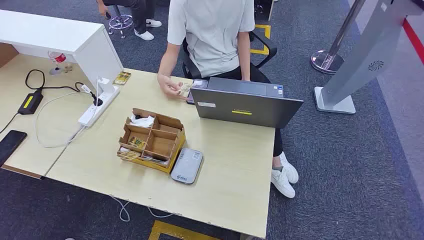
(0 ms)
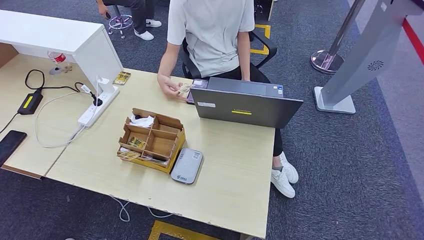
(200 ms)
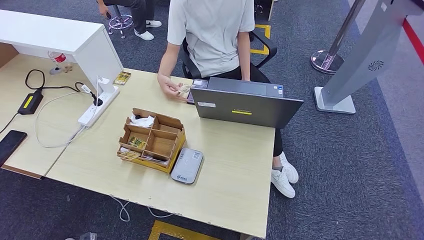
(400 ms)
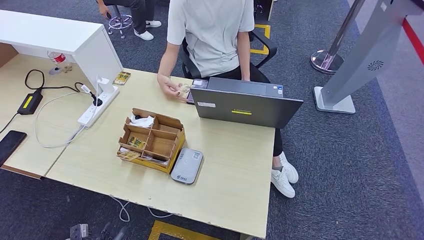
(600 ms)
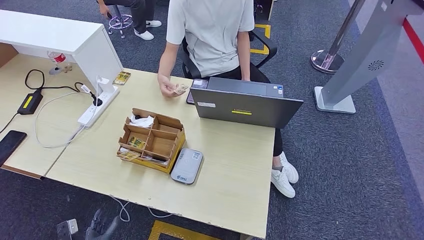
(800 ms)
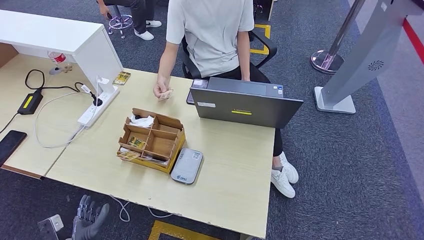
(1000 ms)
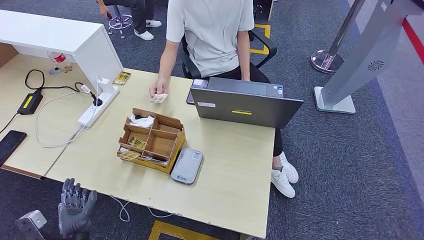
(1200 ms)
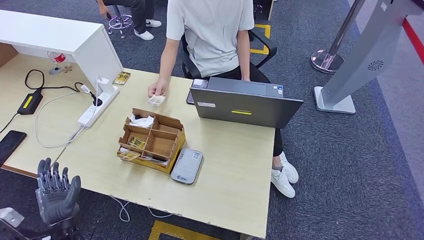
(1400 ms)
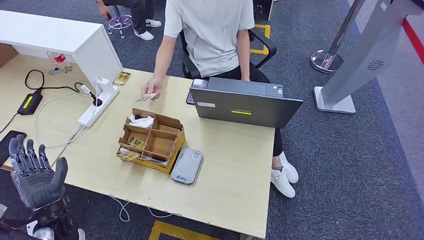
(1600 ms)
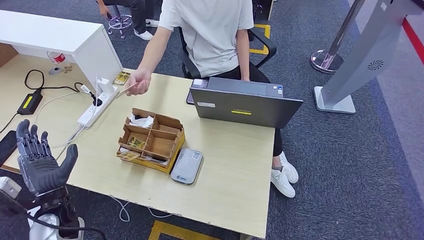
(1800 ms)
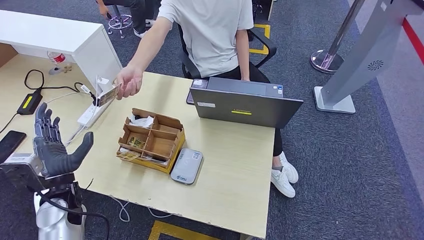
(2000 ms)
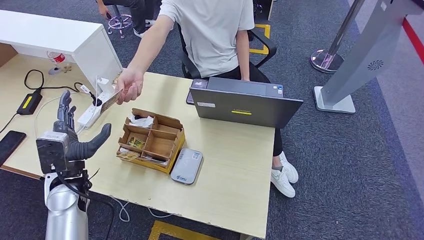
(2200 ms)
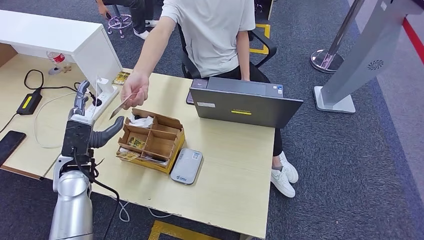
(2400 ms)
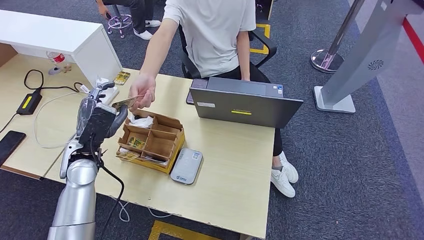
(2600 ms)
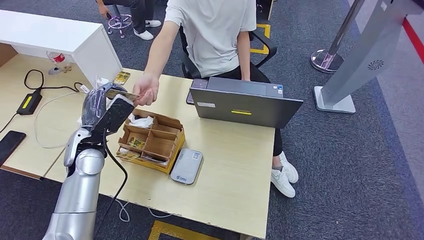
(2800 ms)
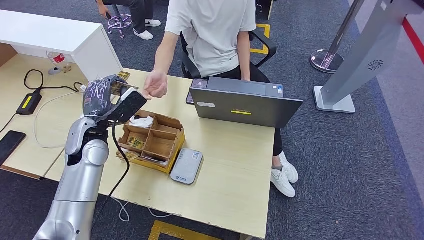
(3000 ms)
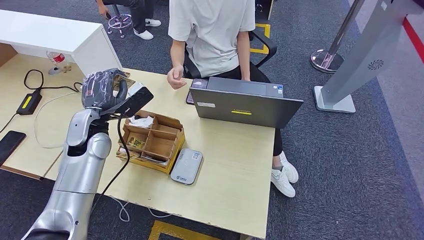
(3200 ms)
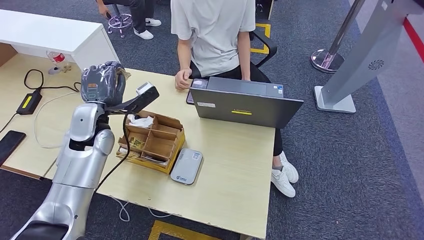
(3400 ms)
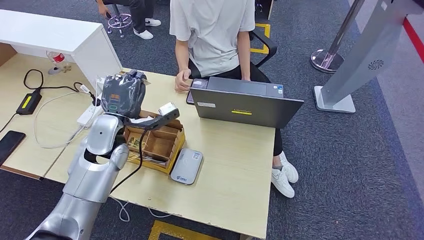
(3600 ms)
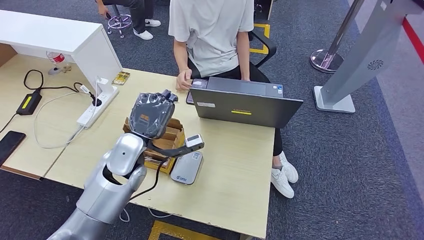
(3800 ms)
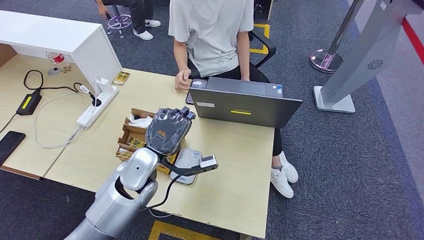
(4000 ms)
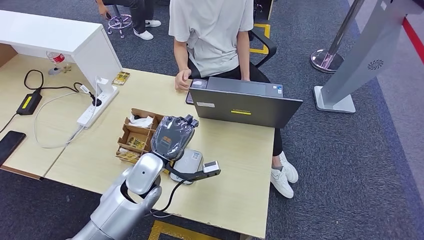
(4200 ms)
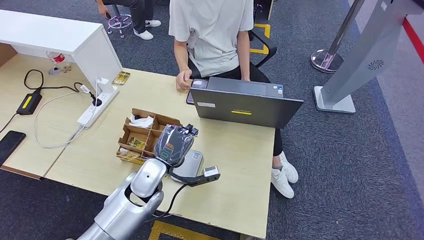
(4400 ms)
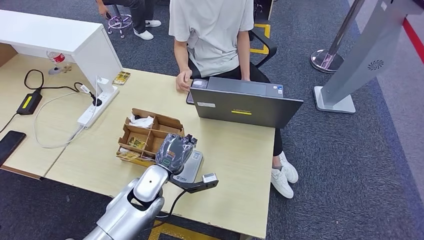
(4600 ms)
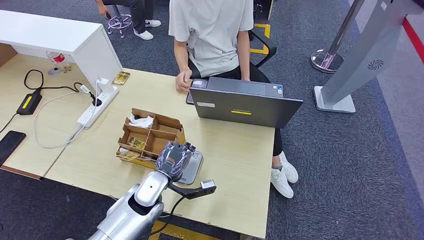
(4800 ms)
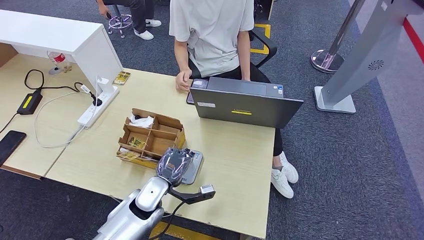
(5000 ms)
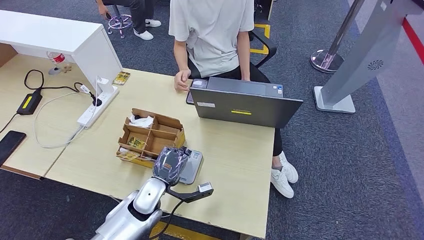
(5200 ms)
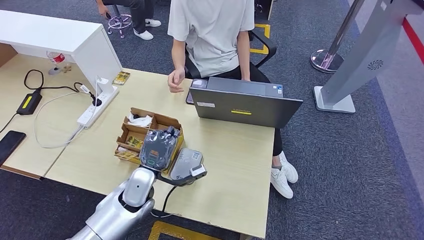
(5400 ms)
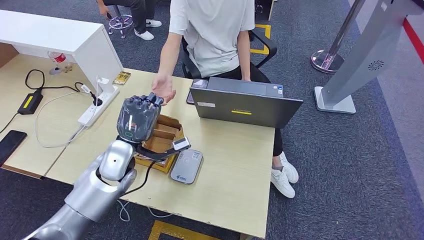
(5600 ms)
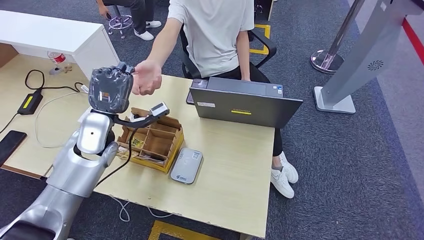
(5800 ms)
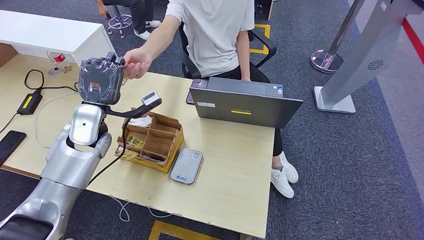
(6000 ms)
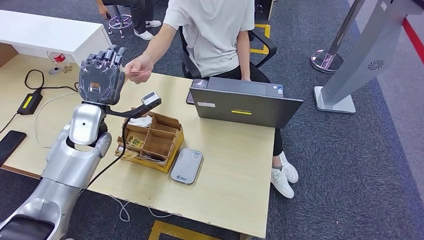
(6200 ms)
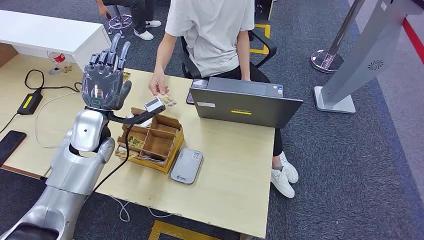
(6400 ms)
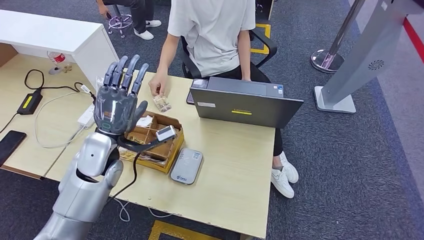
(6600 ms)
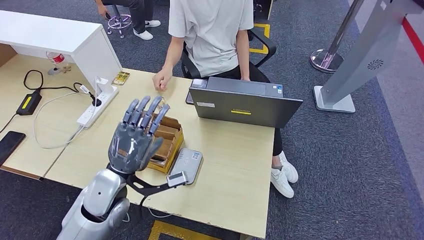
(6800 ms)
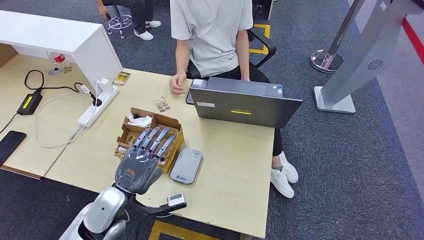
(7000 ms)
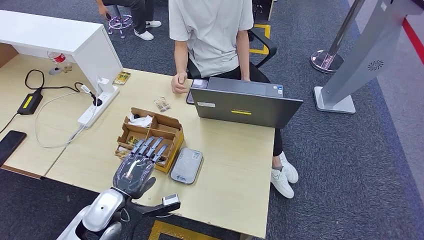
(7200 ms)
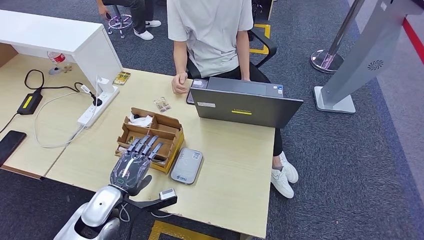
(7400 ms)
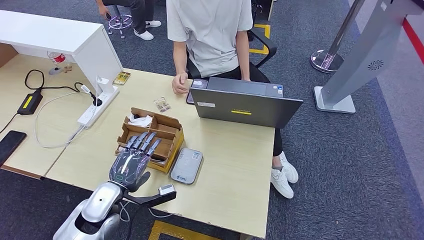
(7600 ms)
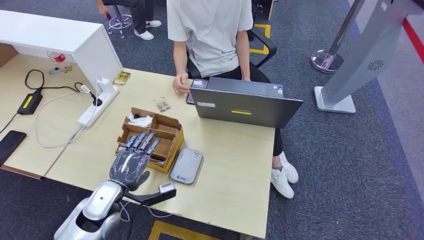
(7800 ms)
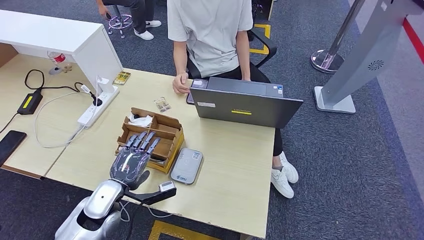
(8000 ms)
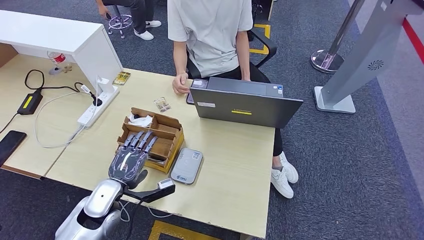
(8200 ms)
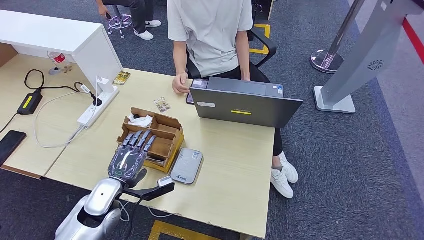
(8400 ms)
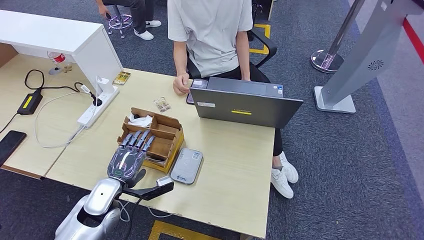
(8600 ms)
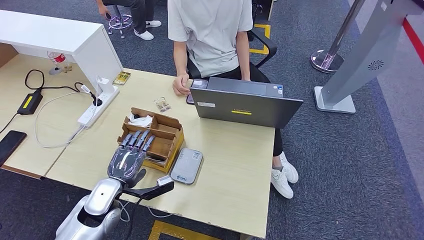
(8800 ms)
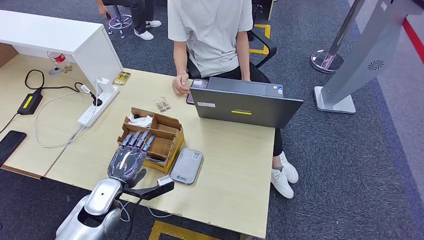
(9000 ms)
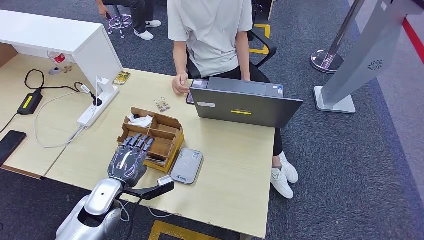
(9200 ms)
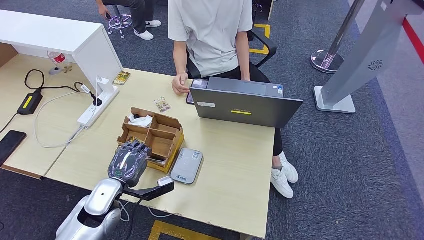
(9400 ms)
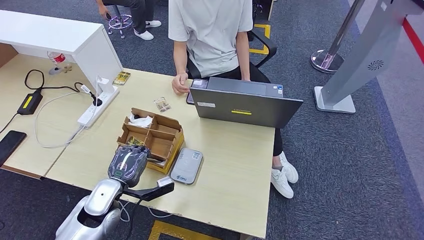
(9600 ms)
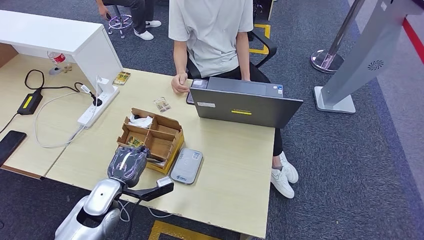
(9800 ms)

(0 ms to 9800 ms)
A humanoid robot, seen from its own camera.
Step, 0 ms - 3200 ms: Take the ID card from the person's hand.
Step, 4000 ms - 5000 ms: Place the ID card on the card reader.
Step, 5400 ms - 6200 ms: Hand the ID card to the person.
1400 ms - 2800 ms: The left hand goes some 25 cm forward and upward.
2800 ms - 4200 ms: The right hand shifts roughly 5 cm to the left, while the left hand moves to the right, roughly 15 cm.
4200 ms - 5600 ms: The left hand shifts some 5 cm to the left, and goes downward and returns, some 10 cm each way.
5600 ms - 7000 ms: The left hand moves backward, about 10 cm.
7000 ms - 8400 ms: The left hand changes place by approximately 5 cm.
8400 ms - 9800 ms: The two hands keep their place.

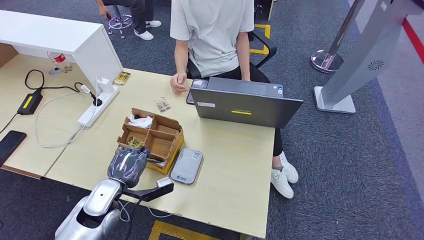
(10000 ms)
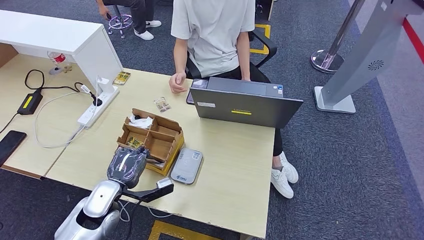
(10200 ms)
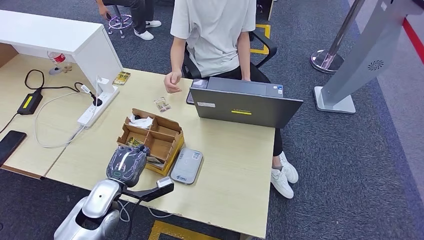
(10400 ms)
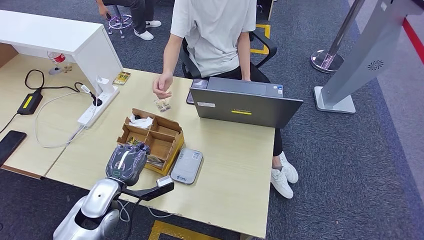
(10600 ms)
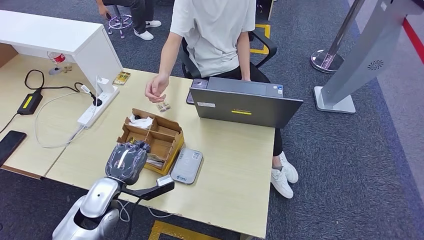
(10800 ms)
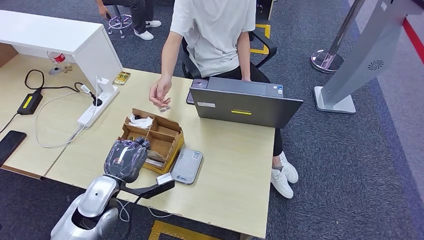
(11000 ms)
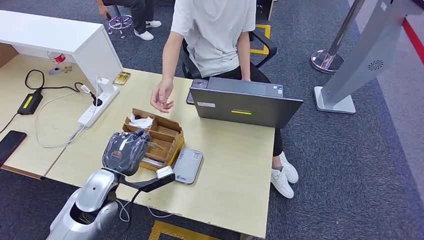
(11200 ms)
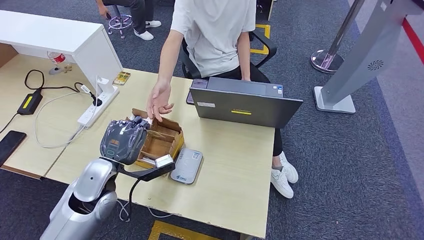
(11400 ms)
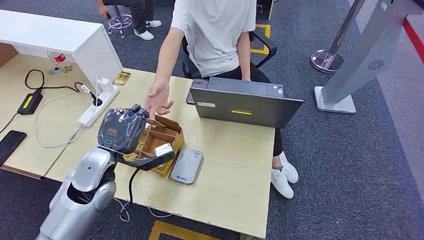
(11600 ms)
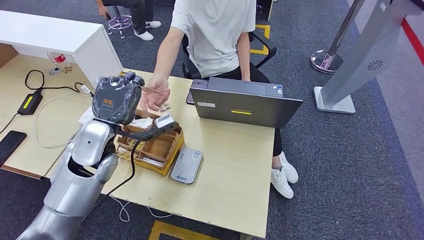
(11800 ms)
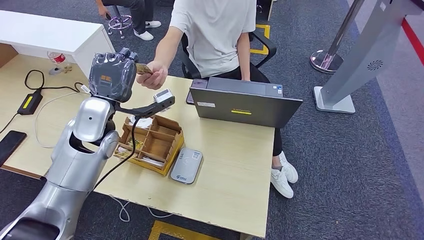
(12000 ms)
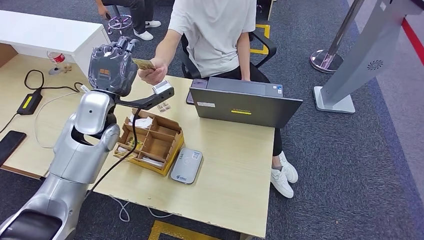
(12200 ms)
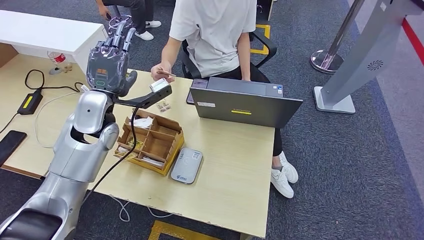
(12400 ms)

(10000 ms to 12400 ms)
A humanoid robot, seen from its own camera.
Step, 10000 ms - 11000 ms: Pick up the room key from the key card box.
Step, 11400 ms - 12400 ms: Hand the room key to the person.
10000 ms - 11200 ms: The left hand travels upward by approximately 5 cm.
11200 ms - 12400 ms: The left hand shifts some 20 cm upward and forward.

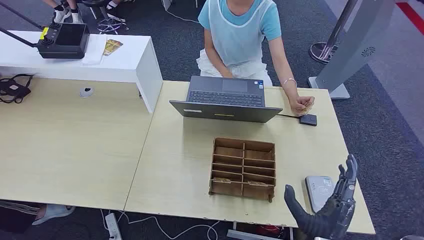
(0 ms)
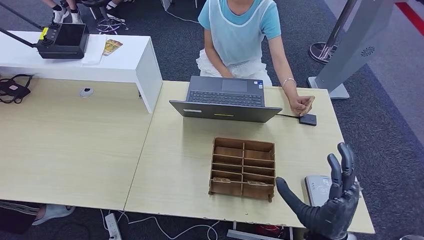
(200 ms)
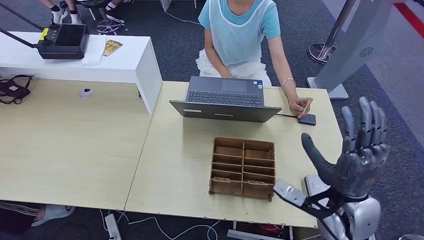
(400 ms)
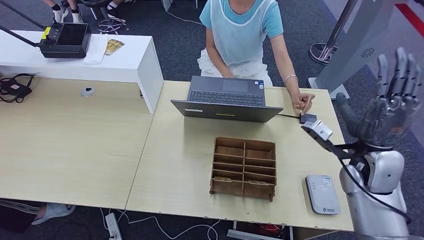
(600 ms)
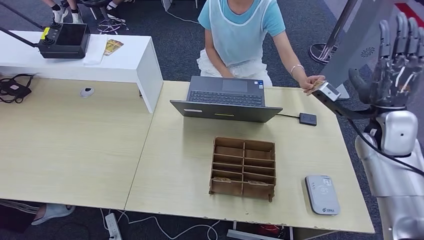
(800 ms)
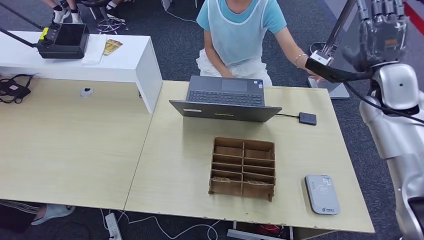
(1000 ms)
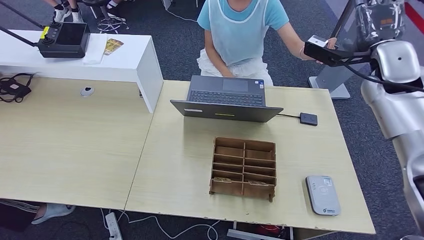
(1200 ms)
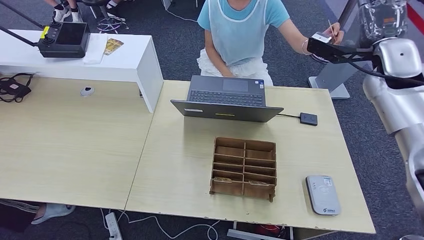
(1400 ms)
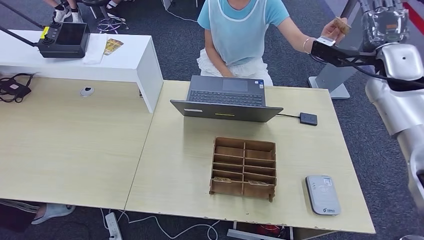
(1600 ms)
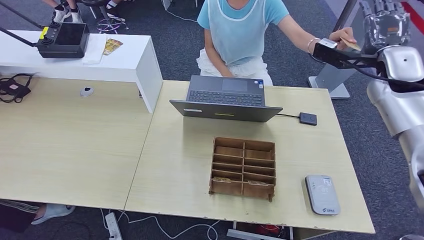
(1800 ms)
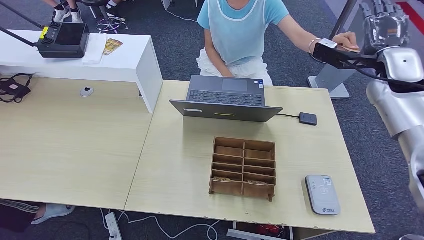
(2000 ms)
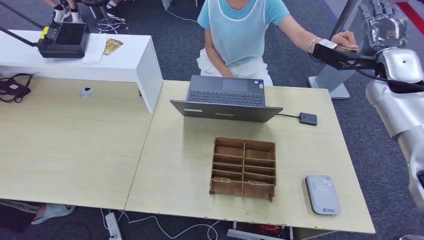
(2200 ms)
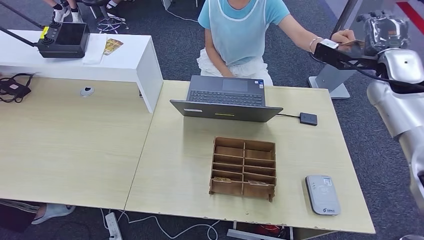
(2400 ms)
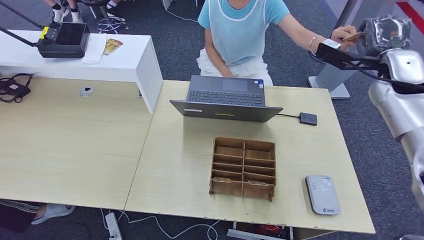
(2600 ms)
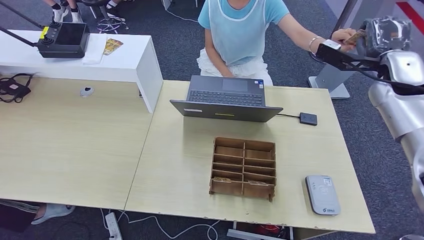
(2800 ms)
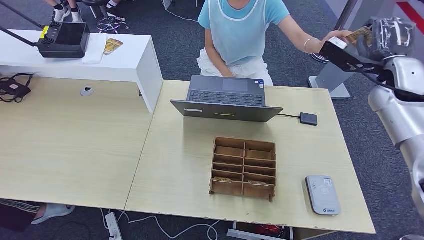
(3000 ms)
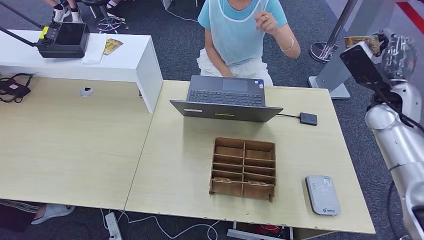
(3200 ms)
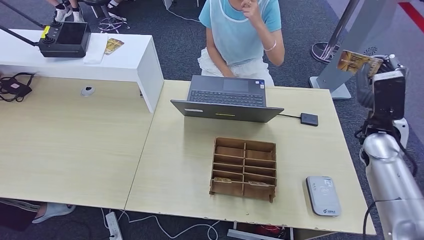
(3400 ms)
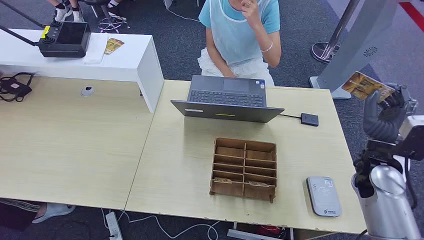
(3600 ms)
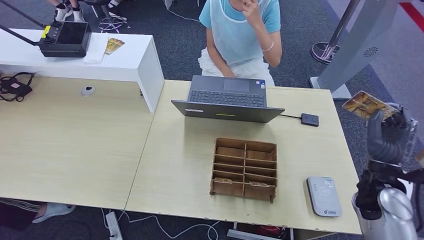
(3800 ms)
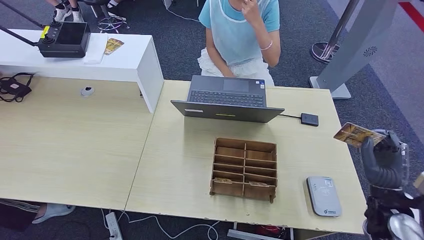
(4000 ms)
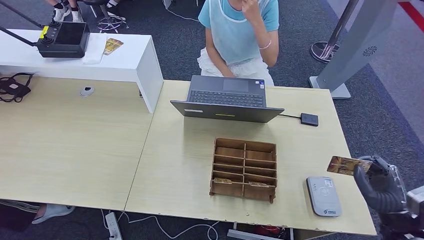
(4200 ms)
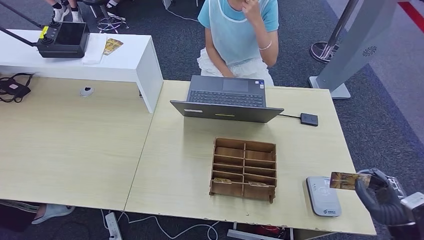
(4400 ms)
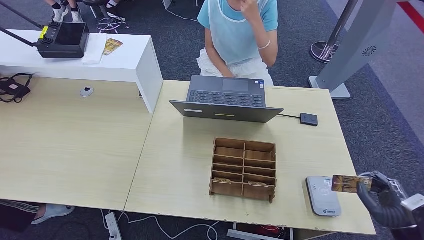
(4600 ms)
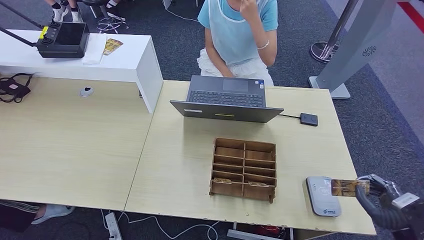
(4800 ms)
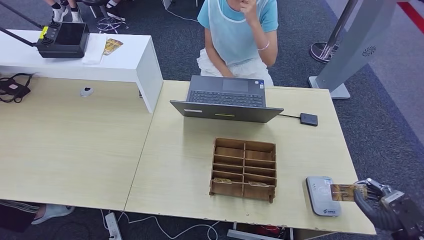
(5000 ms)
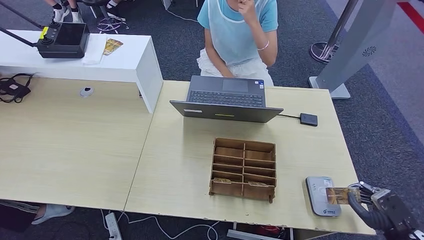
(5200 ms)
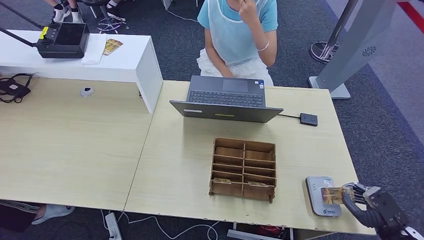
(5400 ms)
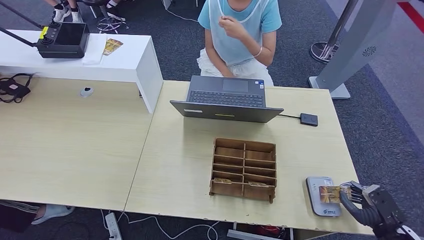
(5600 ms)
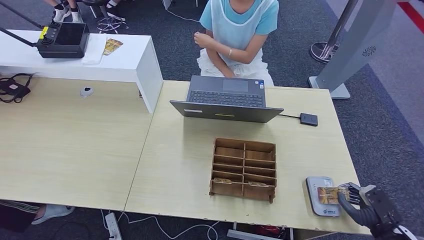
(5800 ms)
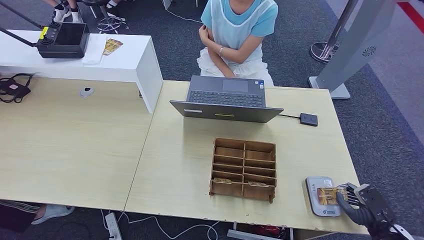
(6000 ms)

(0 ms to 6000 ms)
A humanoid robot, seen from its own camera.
Step, 0 ms - 5000 ms: Take the ID card from the person's hand.
1600 ms - 3000 ms: The hands stay close to where they were, moving slightly.
3000 ms - 4400 ms: The right hand travels backward and downward by roughly 35 cm.
4400 ms - 6000 ms: The right hand shifts approximately 10 cm downward.
